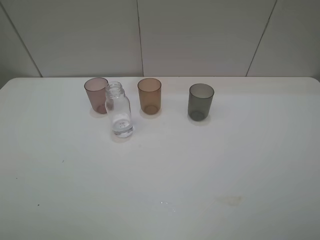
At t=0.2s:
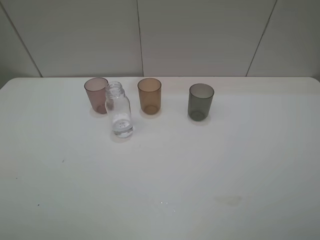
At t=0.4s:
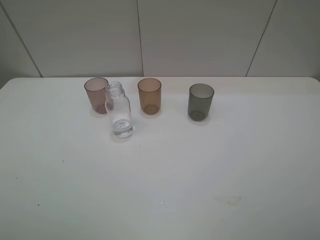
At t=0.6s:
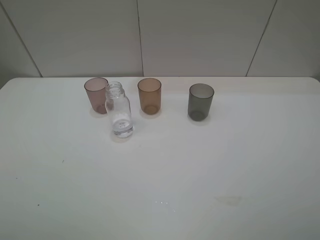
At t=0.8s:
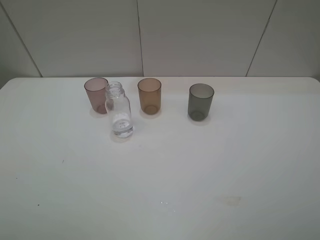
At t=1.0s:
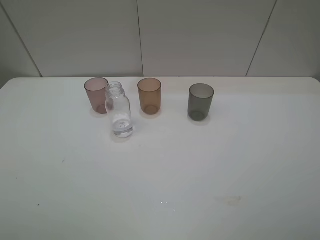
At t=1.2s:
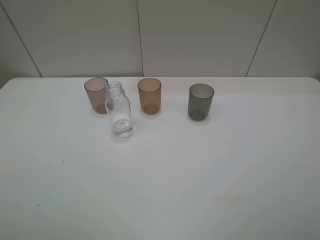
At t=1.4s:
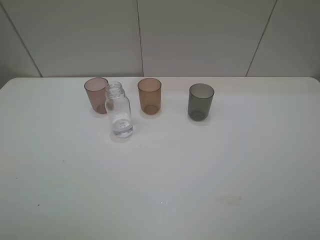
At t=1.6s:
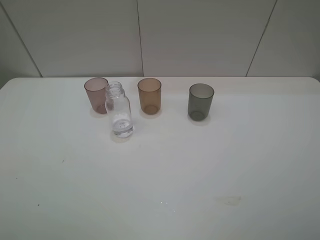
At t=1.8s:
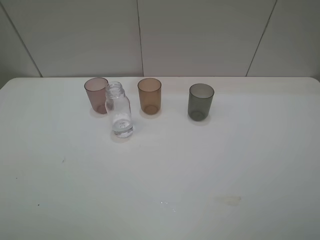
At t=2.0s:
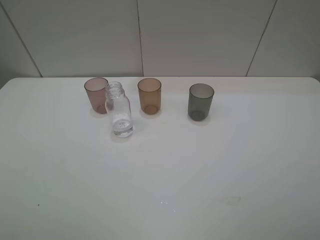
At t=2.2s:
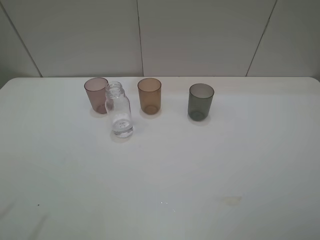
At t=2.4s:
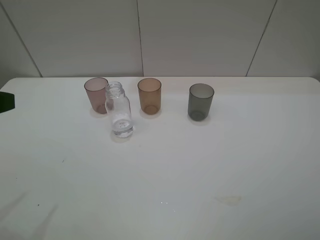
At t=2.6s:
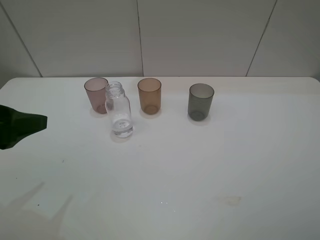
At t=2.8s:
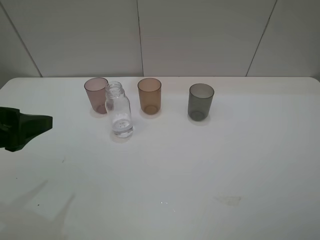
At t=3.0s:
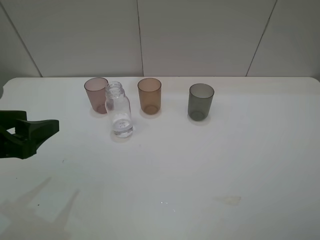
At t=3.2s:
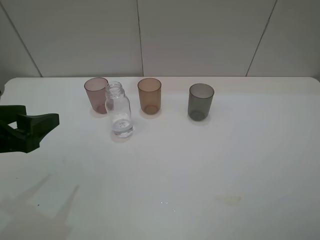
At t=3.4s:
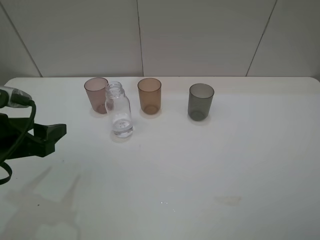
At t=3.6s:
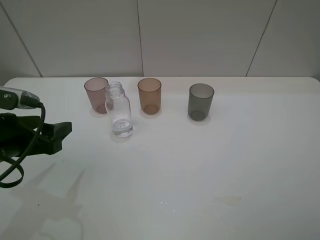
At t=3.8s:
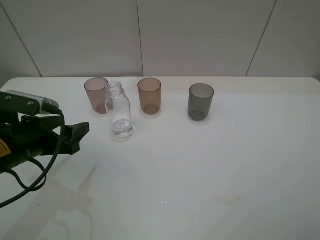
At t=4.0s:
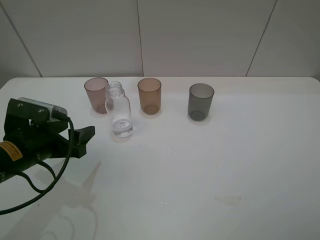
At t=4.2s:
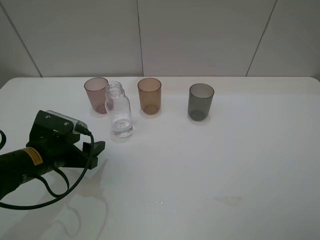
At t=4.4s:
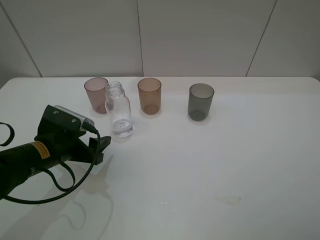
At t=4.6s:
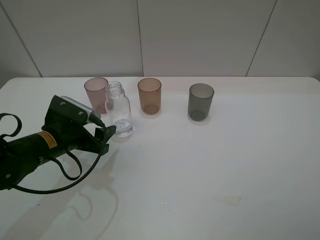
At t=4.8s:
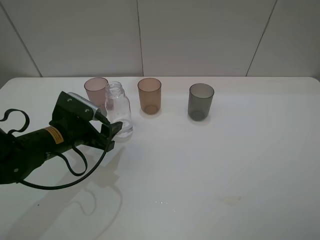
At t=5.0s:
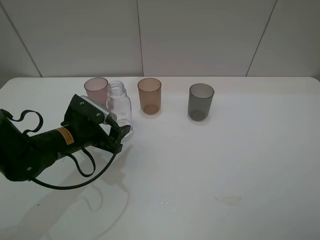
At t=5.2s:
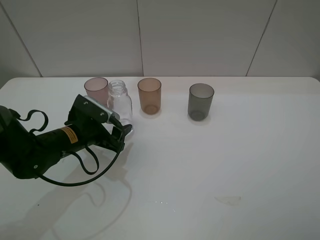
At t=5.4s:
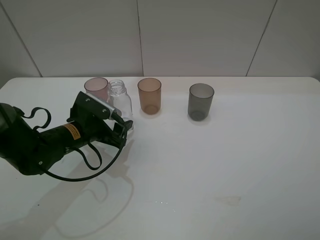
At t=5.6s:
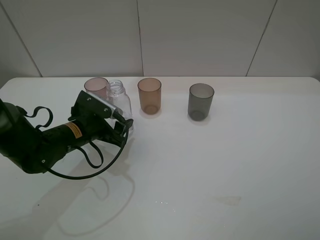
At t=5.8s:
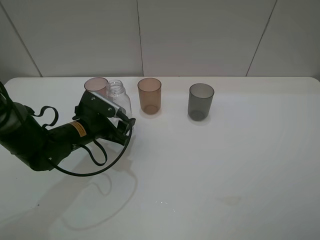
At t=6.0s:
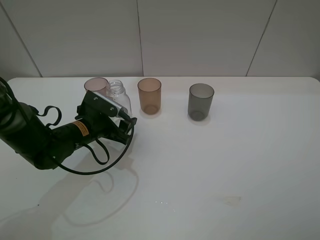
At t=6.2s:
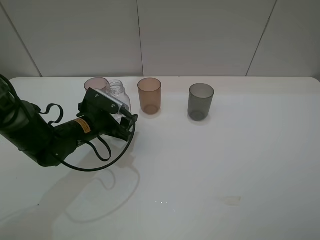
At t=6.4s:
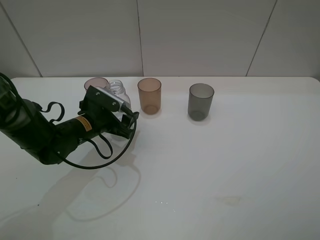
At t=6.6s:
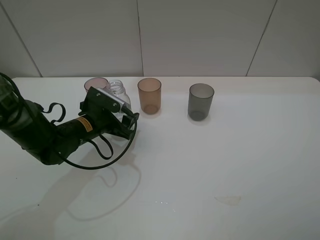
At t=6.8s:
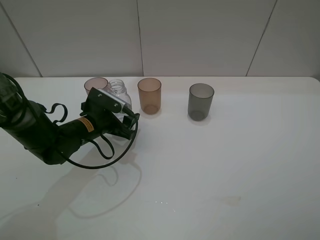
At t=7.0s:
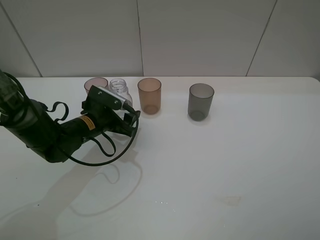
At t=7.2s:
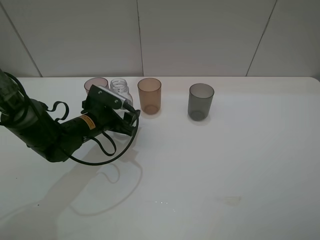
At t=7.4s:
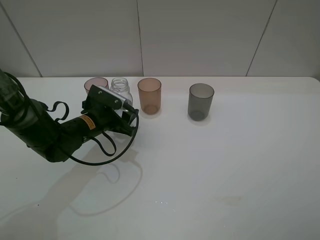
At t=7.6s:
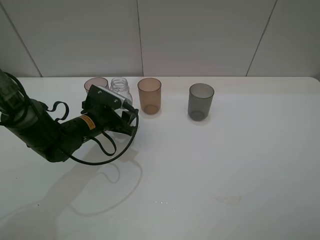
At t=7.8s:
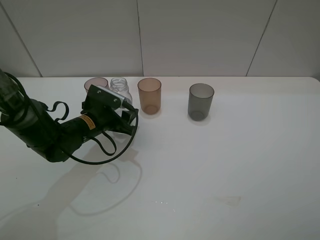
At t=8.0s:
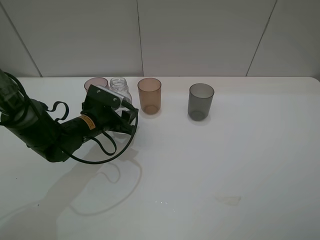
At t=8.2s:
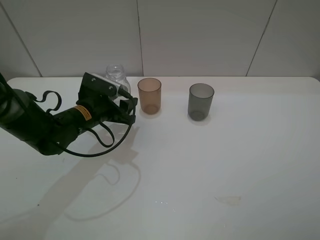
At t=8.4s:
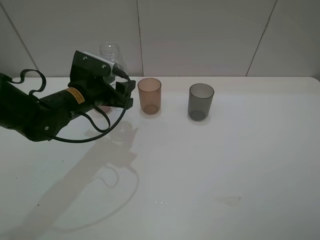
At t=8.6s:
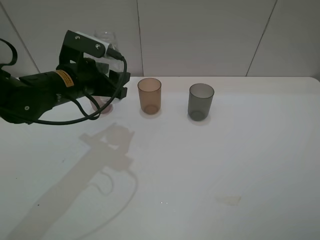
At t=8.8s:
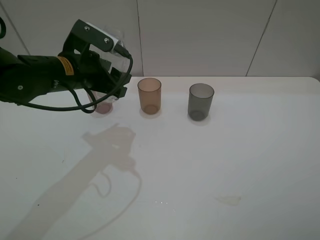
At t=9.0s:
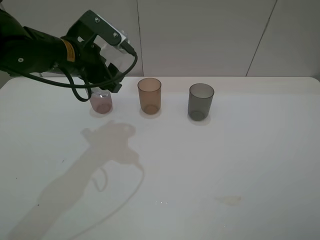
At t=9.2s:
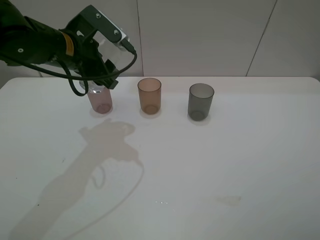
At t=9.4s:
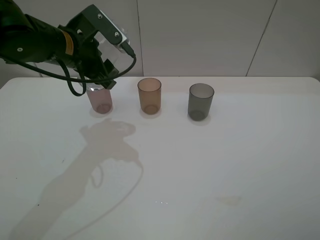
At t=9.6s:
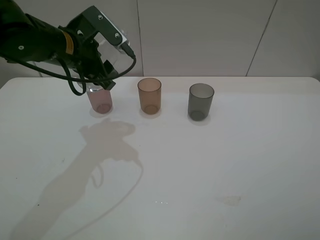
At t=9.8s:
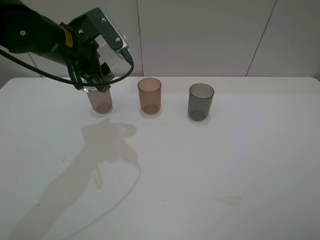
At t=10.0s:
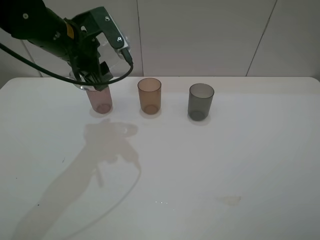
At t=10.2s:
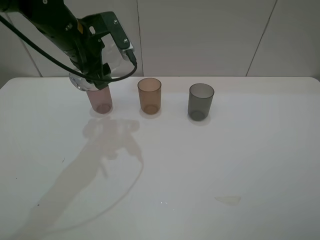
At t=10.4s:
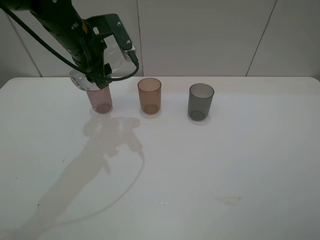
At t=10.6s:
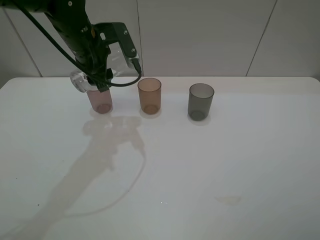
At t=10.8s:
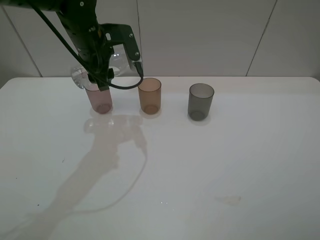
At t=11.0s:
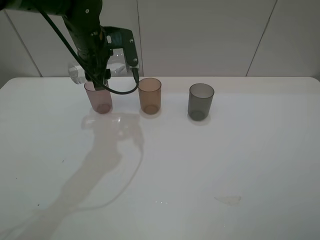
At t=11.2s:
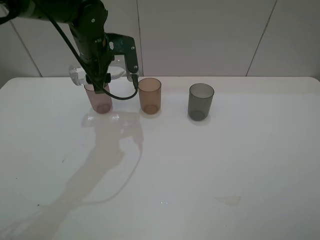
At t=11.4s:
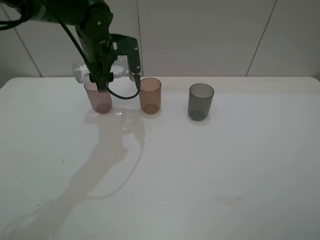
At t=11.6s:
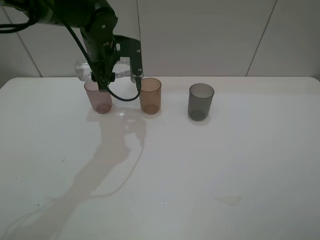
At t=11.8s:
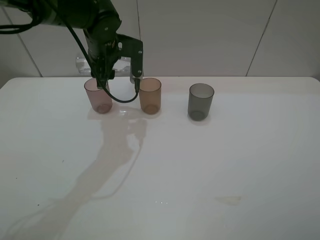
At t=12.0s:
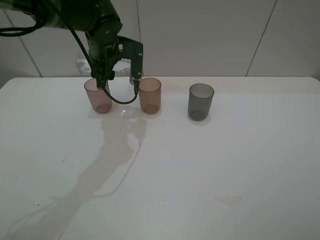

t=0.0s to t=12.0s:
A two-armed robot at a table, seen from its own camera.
Task of the whole recording: pick up the bottle filled with water and pour water into the middle cup of the three cups.
Step, t=0.0s to t=8.0s: Grasp the transparent bottle with the left gripper.
t=0.0s to t=1.6s: Neither gripper changes place.
t=1.6s to t=3.0s: The left gripper travels forward and downward by some 15 cm.
t=3.0s to t=4.4s: The left gripper shifts approximately 15 cm downward and forward.
t=4.4s to t=6.0s: The left gripper moves forward, approximately 5 cm.
t=6.0s to t=7.6s: The left gripper closes up.
t=7.6s to t=9.0s: The left gripper shifts about 15 cm upward.
t=10.4s to t=12.0s: The left gripper moves about 5 cm.

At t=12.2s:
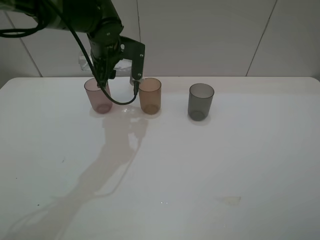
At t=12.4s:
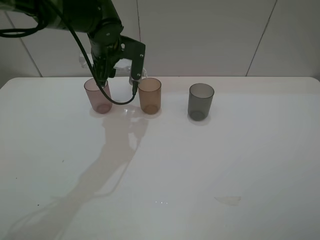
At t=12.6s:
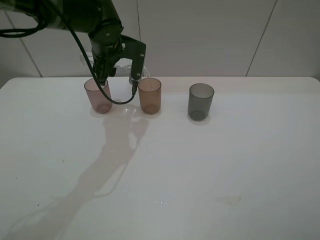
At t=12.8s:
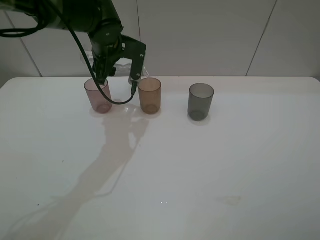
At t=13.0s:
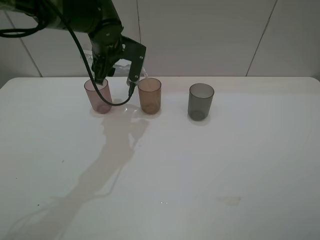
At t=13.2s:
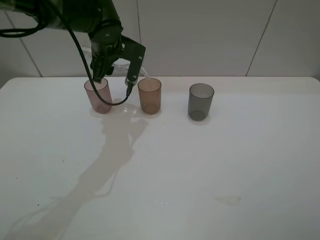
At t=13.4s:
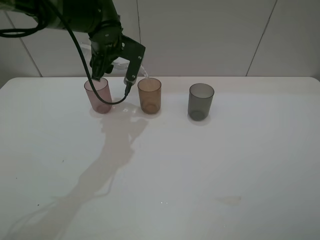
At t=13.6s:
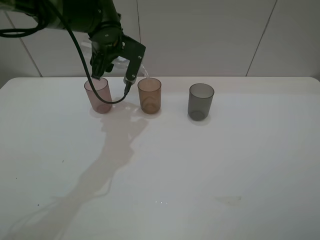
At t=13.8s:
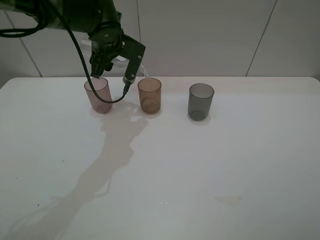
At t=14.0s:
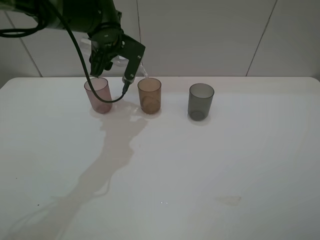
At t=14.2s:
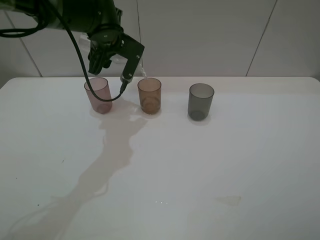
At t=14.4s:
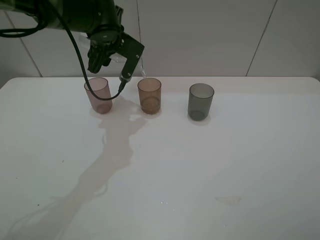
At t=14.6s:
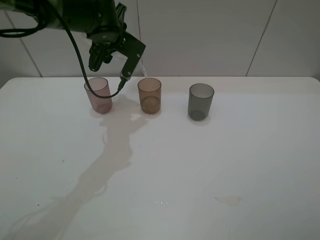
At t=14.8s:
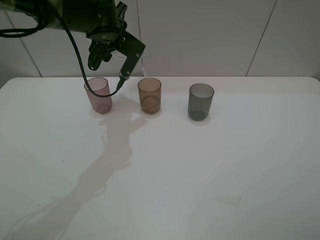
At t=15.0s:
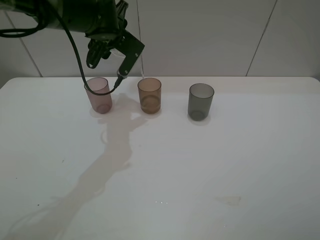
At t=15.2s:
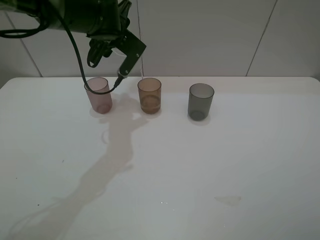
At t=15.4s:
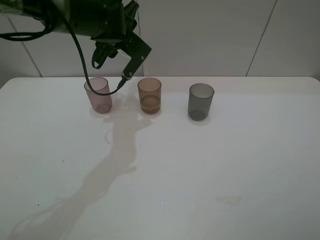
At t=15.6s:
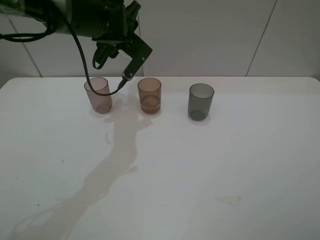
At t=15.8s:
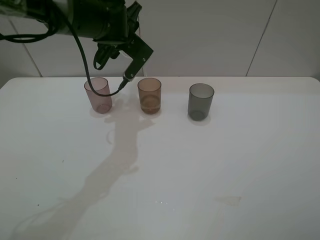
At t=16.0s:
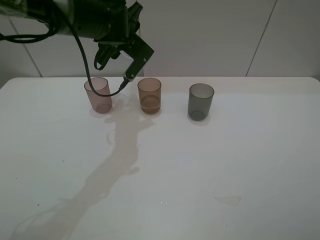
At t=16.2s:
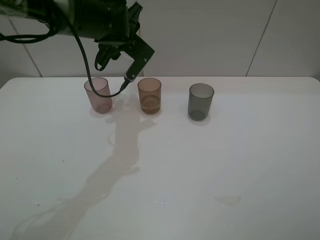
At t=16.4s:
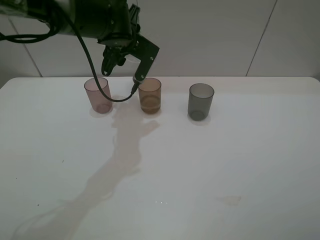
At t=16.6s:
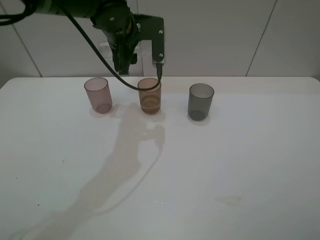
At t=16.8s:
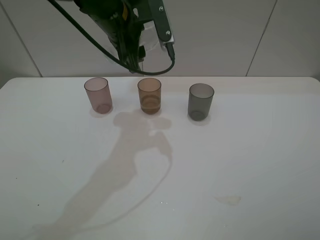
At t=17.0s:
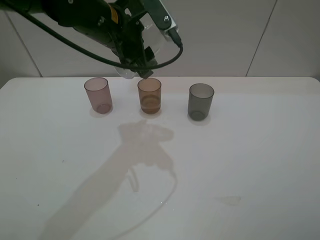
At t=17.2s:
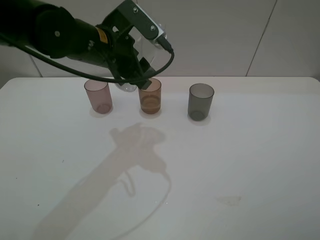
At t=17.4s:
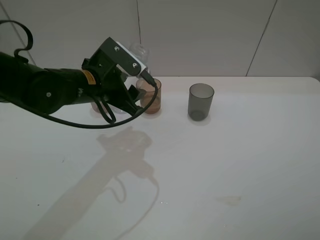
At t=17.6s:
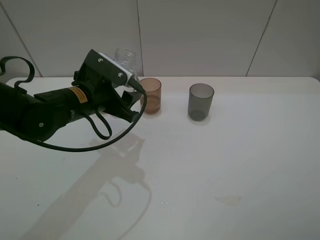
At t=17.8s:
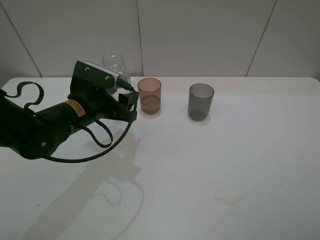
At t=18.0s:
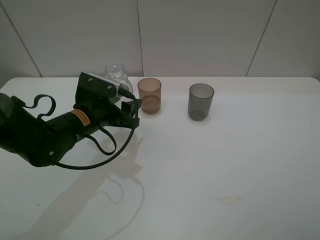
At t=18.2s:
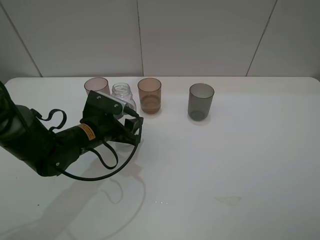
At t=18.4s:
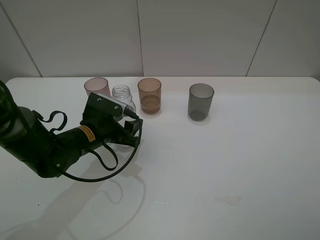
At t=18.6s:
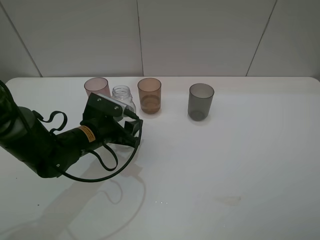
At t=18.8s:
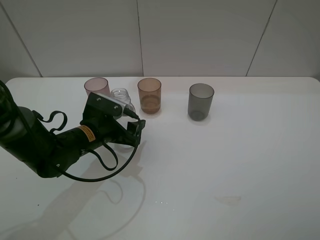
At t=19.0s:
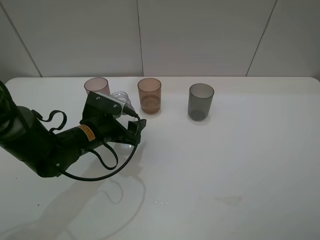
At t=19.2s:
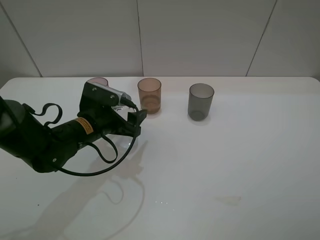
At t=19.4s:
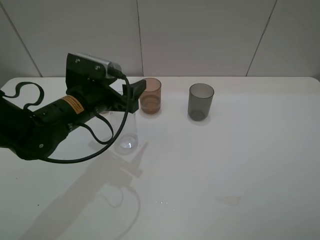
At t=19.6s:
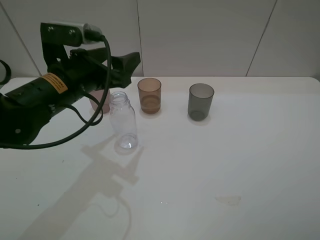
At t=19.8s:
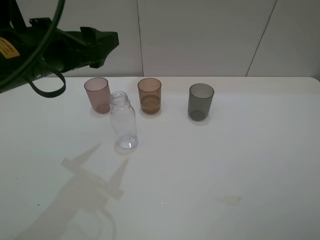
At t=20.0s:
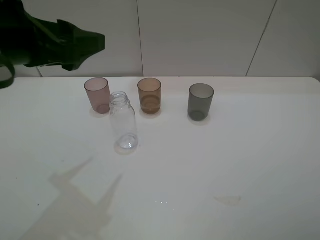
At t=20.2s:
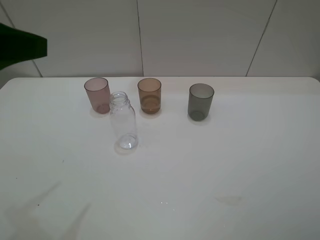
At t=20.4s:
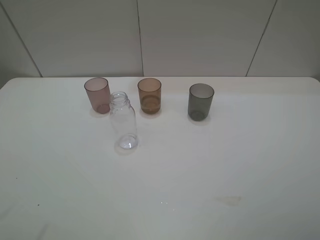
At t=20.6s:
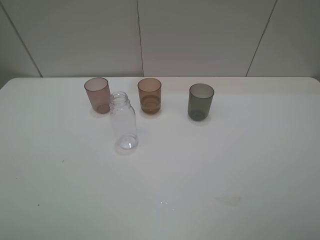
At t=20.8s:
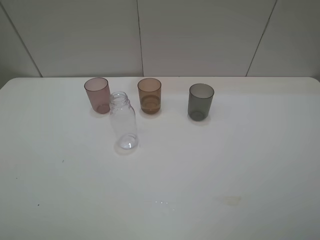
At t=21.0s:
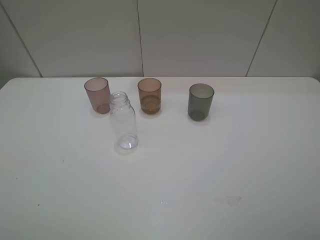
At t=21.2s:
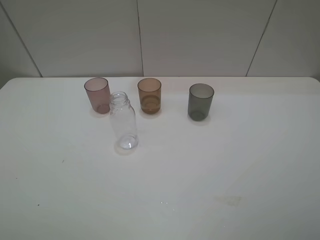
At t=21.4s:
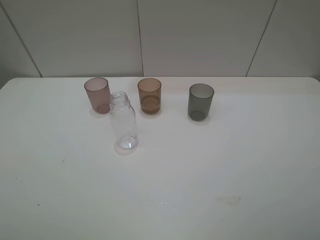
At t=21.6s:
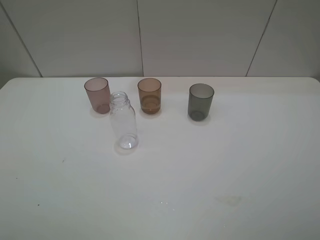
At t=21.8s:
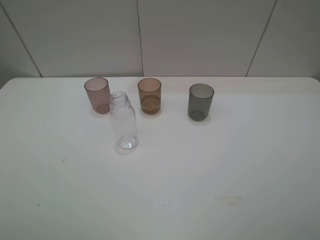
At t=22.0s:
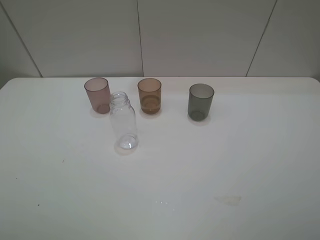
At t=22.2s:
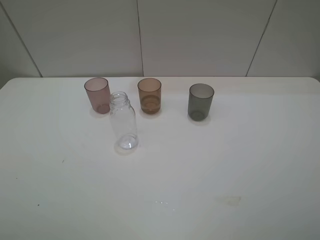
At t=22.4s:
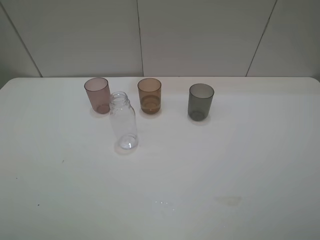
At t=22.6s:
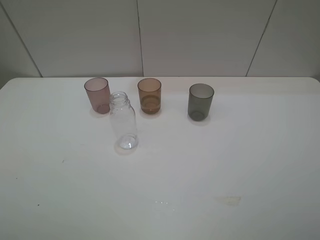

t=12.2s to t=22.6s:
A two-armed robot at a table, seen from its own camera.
Task of the whole recording: pick up the bottle filled with water and pour water into the middle cup of the three cups.
Step, t=12.2s to t=16.4s: Pour water from transparent bottle to brown cup with the left gripper.
Step, t=16.6s to t=19.6s: Place the transparent bottle with the left gripper.
t=12.2s to t=13.6s: The grippers stay close to where they were, moving slightly.
t=13.6s to t=15.2s: The grippers move only a little.
t=15.2s to t=16.6s: The left gripper moves approximately 5 cm.
t=16.6s to t=18.2s: The left gripper travels downward, backward and to the left by about 25 cm.
t=18.2s to t=19.6s: The left gripper heads upward, covering some 15 cm, and opens its fingers.
t=19.6s to t=21.2s: The left gripper heads backward and to the left, covering roughly 35 cm.
